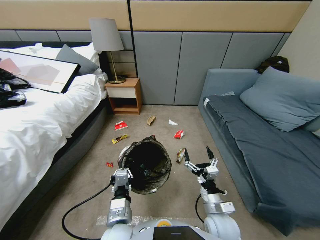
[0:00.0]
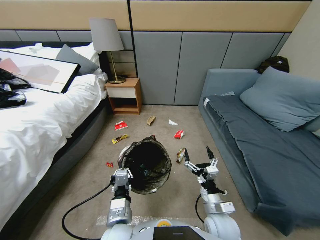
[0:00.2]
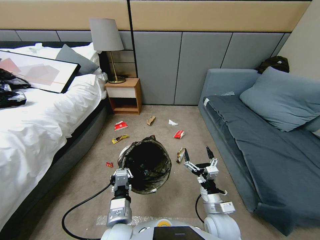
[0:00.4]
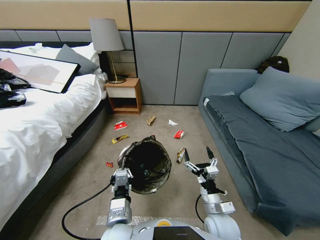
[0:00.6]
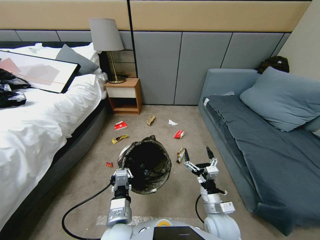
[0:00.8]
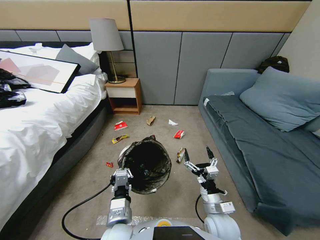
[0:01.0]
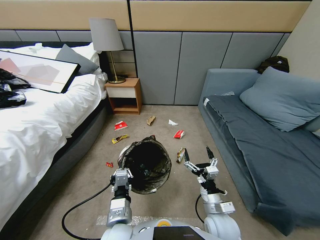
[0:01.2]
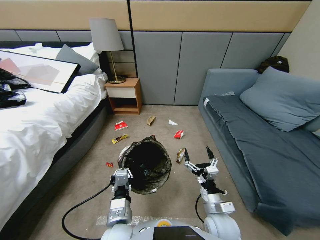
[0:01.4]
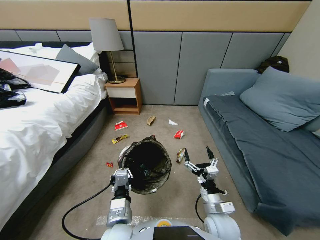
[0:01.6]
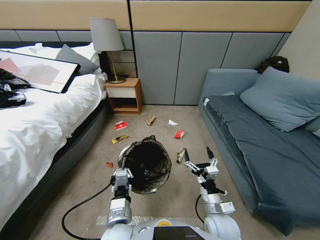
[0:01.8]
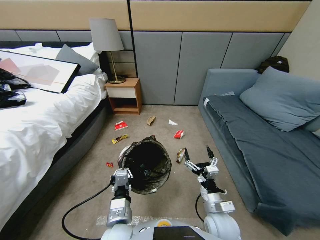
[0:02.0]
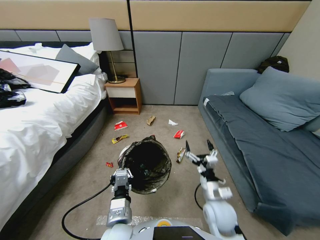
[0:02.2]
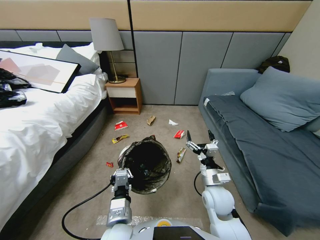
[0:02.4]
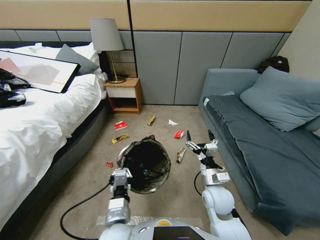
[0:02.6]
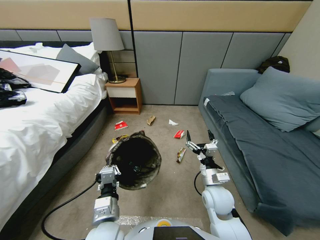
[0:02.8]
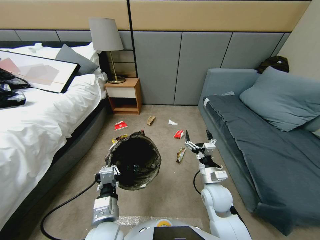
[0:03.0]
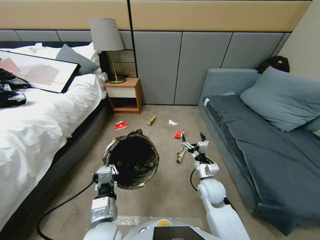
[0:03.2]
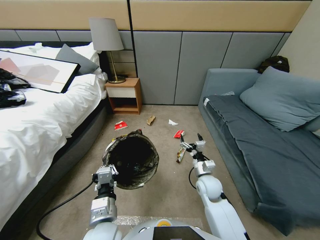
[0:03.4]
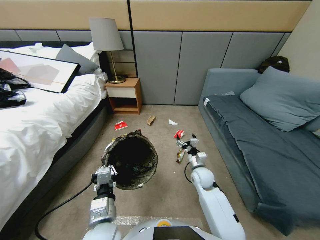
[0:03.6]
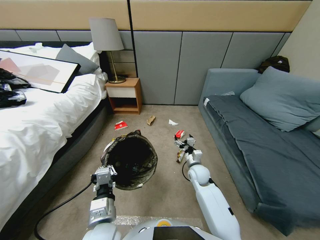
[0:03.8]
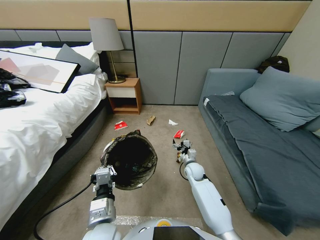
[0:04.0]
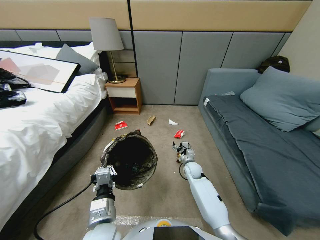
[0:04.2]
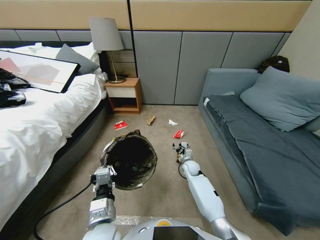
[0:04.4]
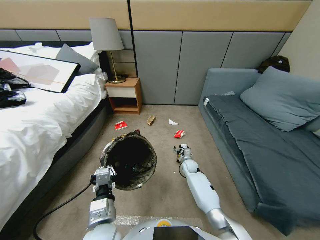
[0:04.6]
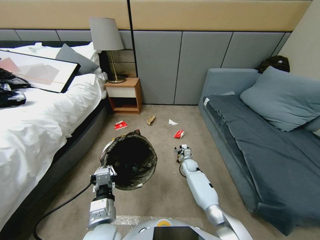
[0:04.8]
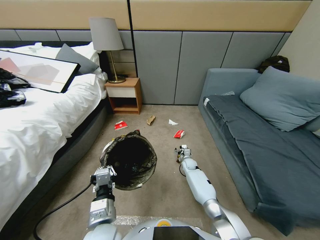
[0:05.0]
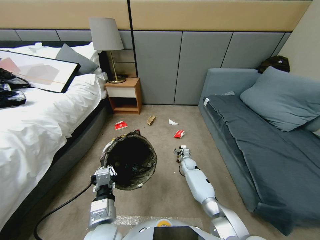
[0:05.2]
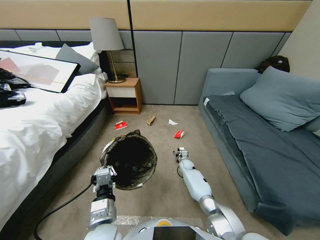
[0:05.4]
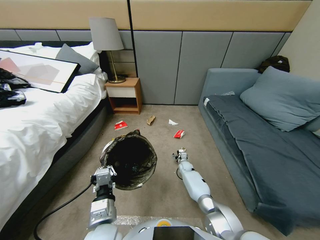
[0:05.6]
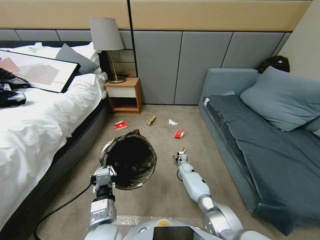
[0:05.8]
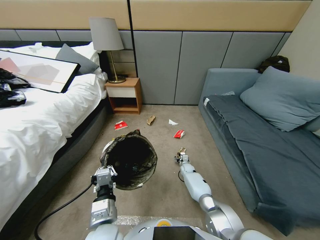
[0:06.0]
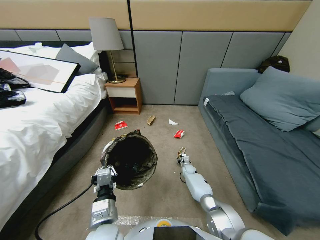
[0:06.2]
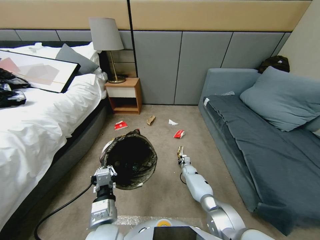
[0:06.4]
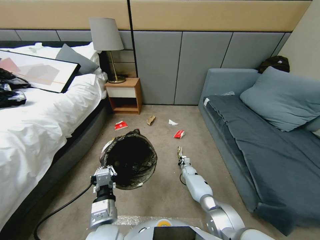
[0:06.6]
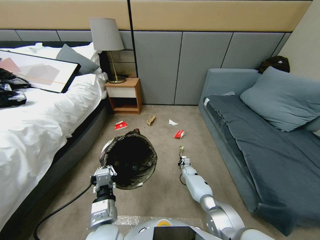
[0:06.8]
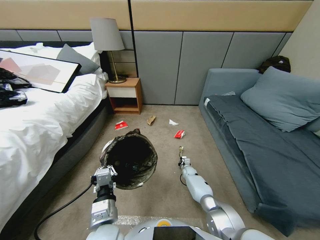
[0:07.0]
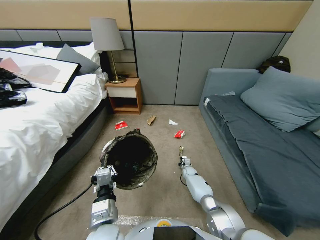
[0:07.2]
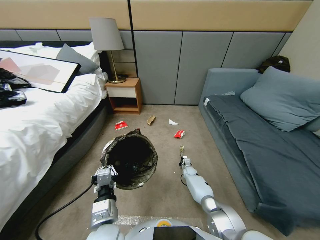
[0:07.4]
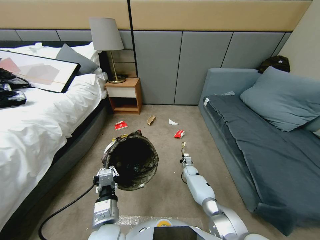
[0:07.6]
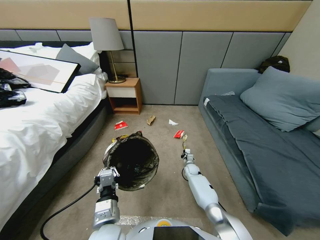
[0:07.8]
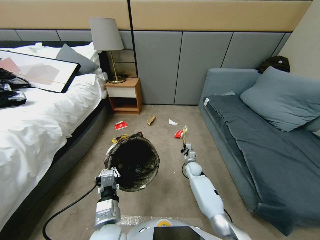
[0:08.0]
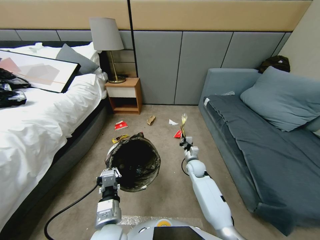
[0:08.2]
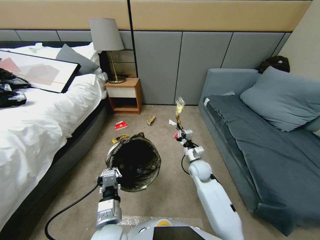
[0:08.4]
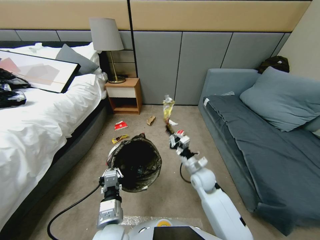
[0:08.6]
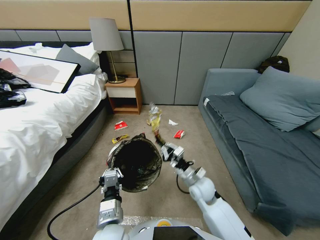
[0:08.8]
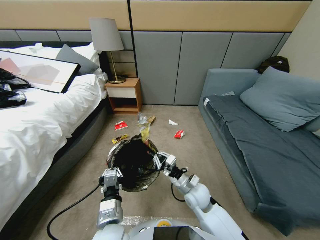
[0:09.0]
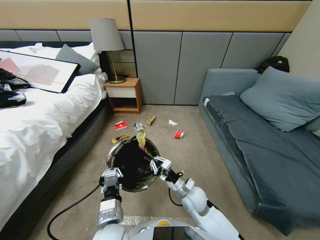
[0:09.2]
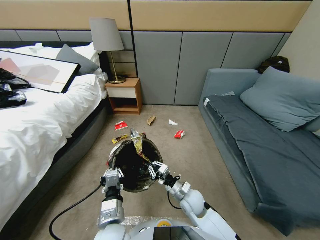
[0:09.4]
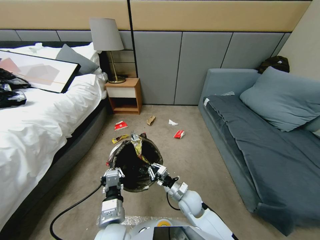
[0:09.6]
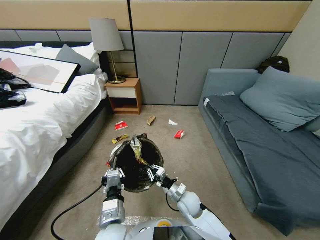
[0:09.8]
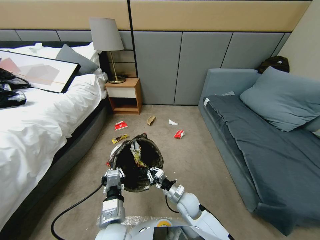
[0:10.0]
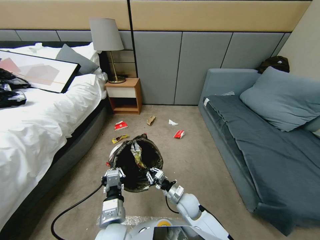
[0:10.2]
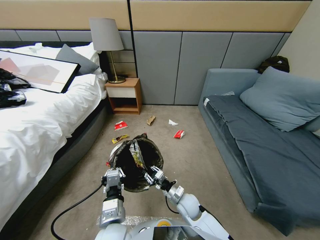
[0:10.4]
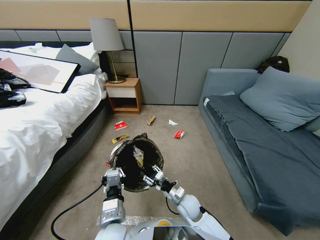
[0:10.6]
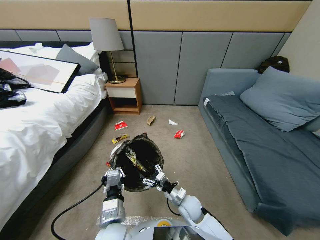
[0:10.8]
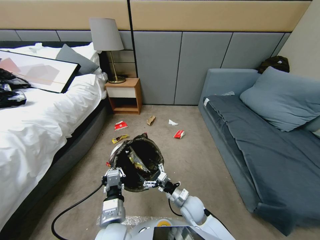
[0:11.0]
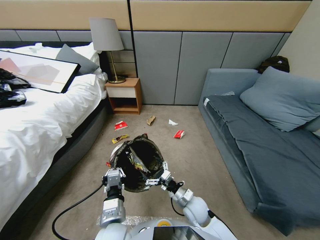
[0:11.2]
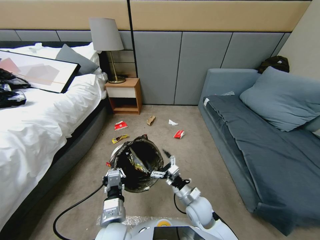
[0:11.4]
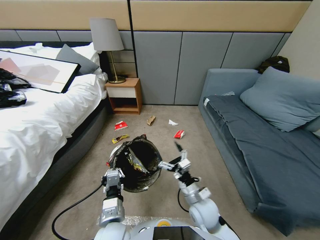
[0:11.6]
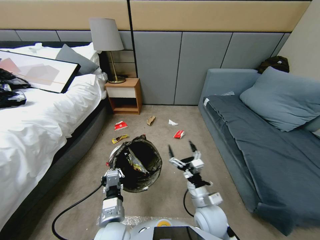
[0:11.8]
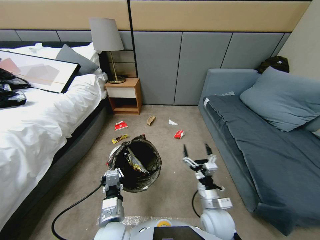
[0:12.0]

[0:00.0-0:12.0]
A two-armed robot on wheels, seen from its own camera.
Task of the whole recording: Pick up the trash bin, then pick up the garbage from the floor and place it into the trash bin.
0:00.0 to 0:01.6: Both grippers stay about where they are.
0:01.6 to 0:03.0: The right gripper shifts roughly 10 cm forward.
0:03.0 to 0:04.4: The right gripper goes approximately 25 cm forward and downward.
0:04.4 to 0:06.0: The right gripper is displaced downward by roughly 10 cm.
0:06.0 to 0:07.6: The right gripper closes up.
0:07.6 to 0:09.0: The right gripper moves backward and upward, some 30 cm.
0:09.0 to 0:10.4: The right gripper is displaced downward by some 10 cm, and opens up.
0:10.4 to 0:12.0: The right gripper goes roughly 15 cm to the right, upward and backward, and opens up.

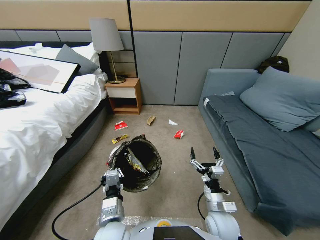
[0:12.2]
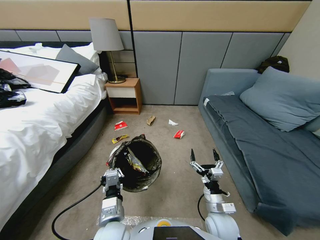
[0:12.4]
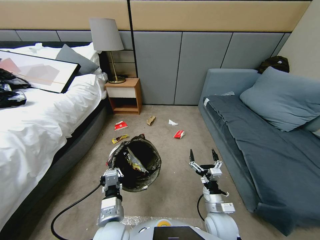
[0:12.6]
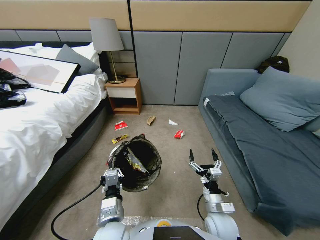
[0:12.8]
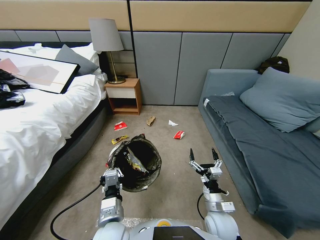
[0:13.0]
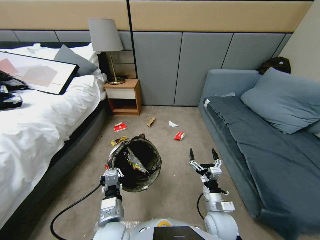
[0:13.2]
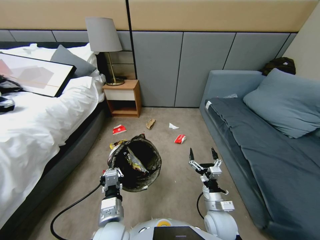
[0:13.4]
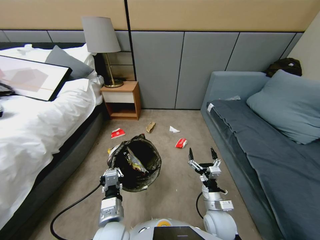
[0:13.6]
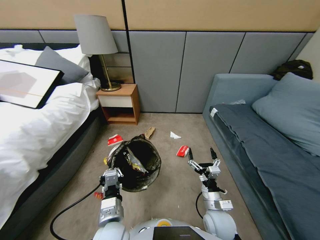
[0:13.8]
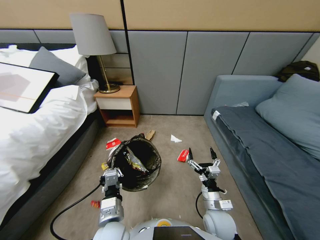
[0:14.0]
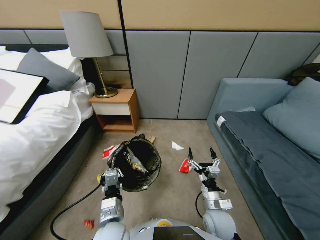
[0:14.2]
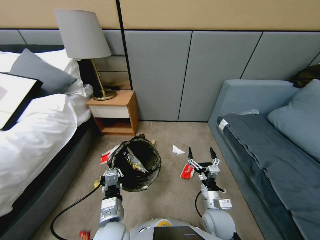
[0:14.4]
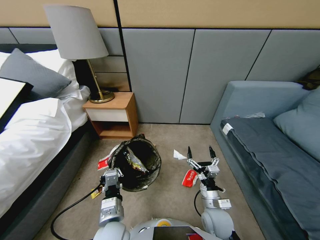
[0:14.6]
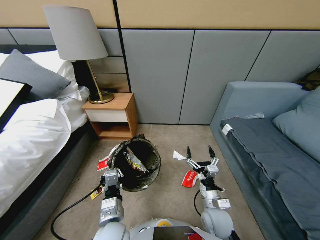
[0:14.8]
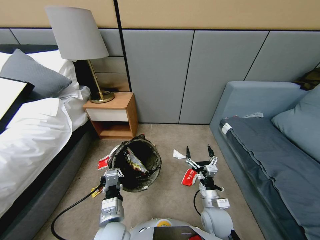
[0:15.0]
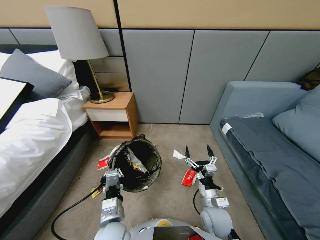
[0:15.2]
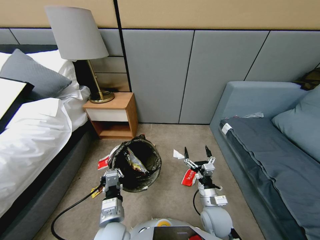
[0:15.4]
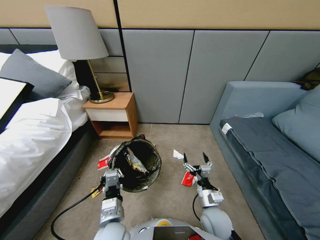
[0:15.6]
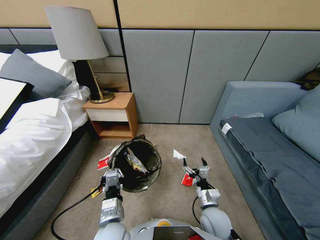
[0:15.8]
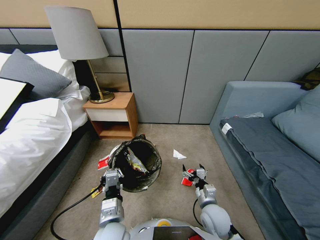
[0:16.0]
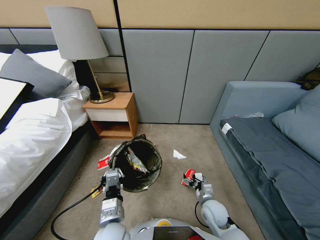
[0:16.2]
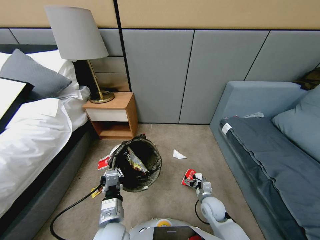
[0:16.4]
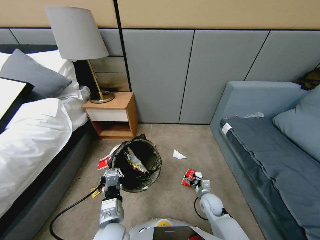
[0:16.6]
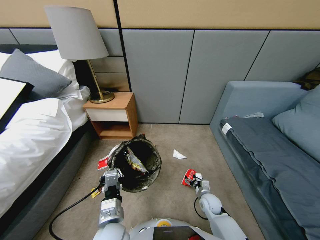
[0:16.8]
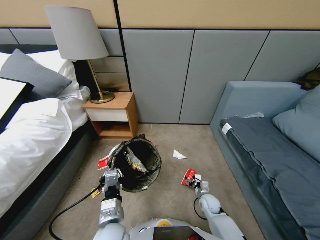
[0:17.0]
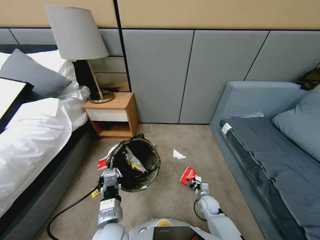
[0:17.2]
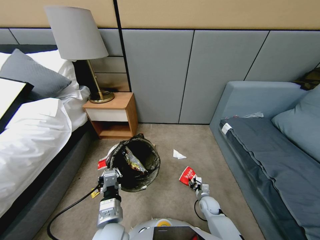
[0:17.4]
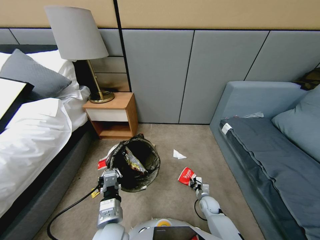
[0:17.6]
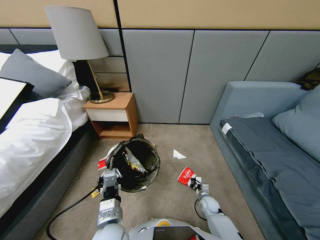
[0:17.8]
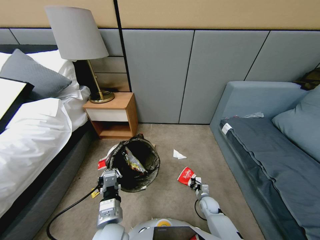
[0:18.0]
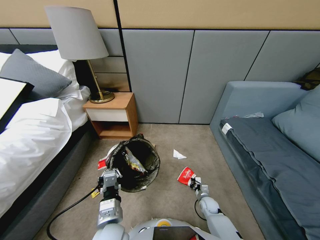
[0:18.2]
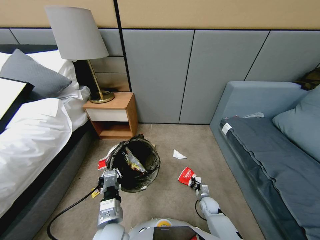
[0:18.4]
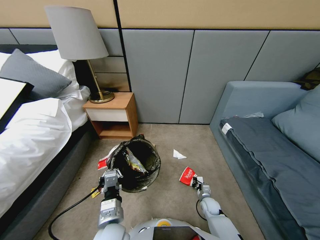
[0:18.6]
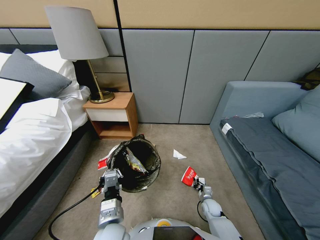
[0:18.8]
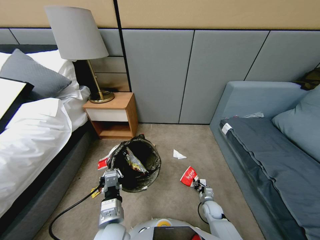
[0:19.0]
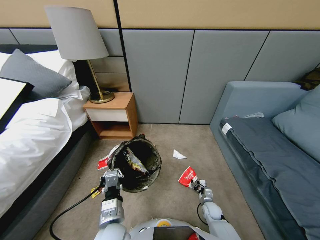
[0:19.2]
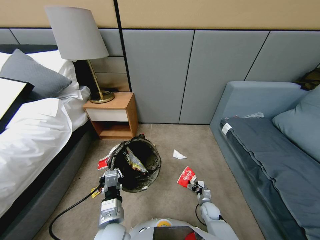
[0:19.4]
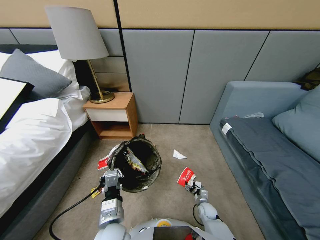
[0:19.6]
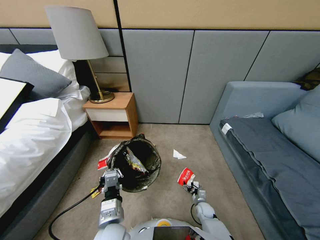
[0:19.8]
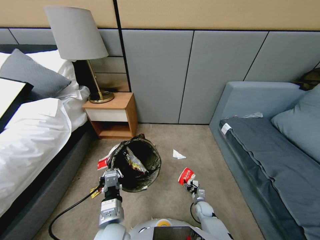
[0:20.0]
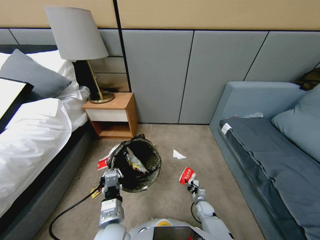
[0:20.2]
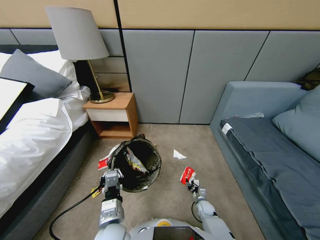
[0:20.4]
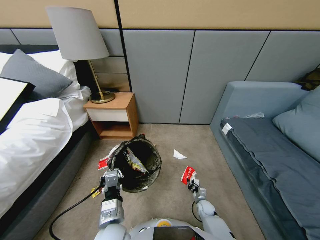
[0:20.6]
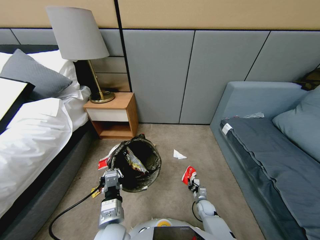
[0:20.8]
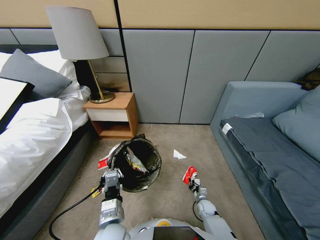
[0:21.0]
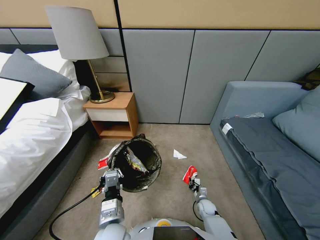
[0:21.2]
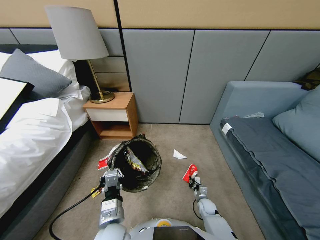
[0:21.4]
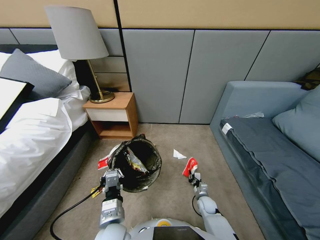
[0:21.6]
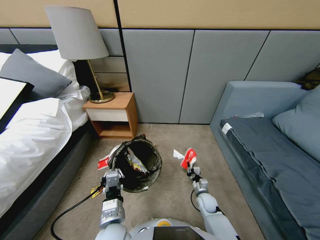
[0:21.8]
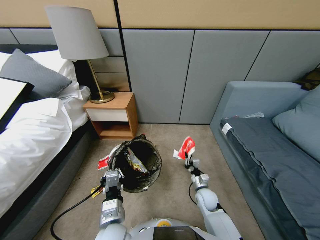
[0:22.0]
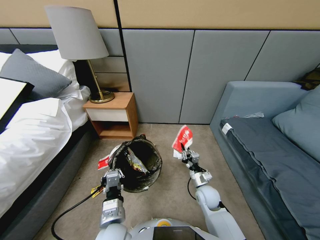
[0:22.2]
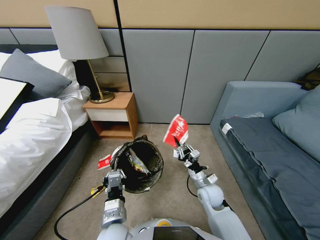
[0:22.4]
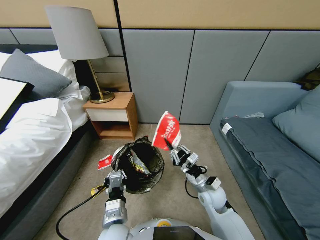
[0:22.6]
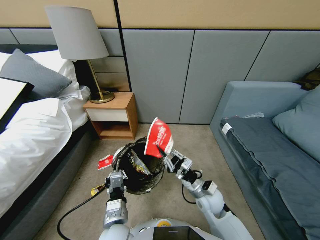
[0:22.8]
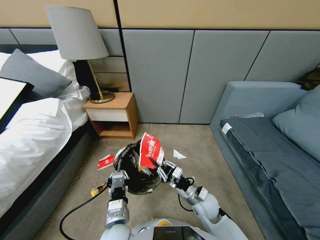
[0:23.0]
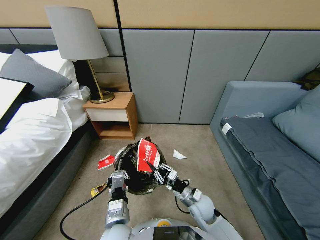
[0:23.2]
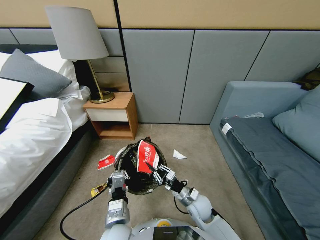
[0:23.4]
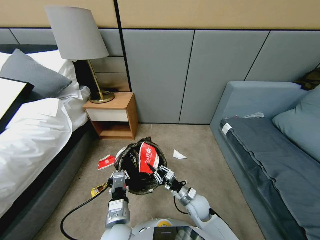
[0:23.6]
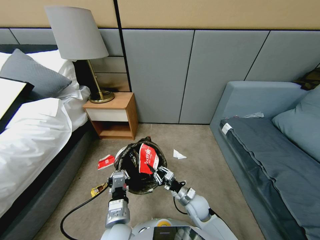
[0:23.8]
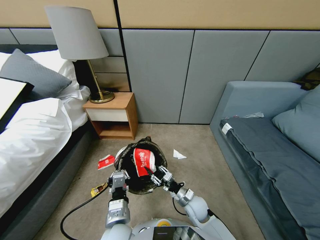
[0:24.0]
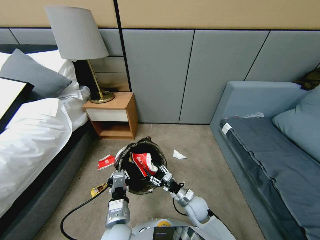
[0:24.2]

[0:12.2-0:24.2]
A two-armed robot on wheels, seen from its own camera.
Task of the whole recording: Pick up the trash bin, then pick up the garbage from the floor and place it into the trash bin.
0:15.2 to 0:16.6: The right gripper heads downward, forward and to the right, covering approximately 15 cm.
0:16.6 to 0:18.2: The right gripper travels downward by some 10 cm, and closes up.
0:18.2 to 0:19.8: The right gripper opens.
0:19.8 to 0:21.2: The right gripper closes its fingers.
0:21.2 to 0:22.6: The right gripper heads upward, covering some 25 cm.
0:22.6 to 0:24.2: The right gripper shifts approximately 10 cm downward, and opens.
